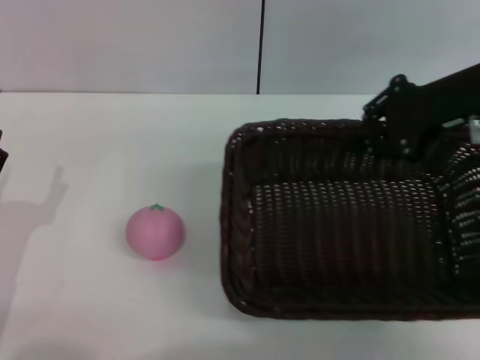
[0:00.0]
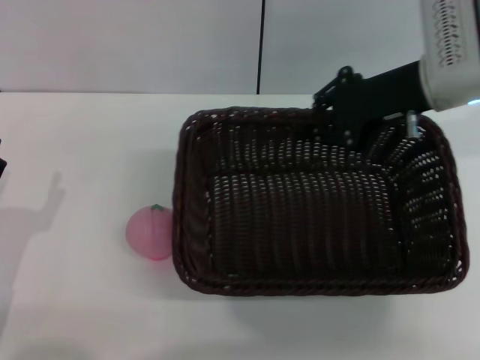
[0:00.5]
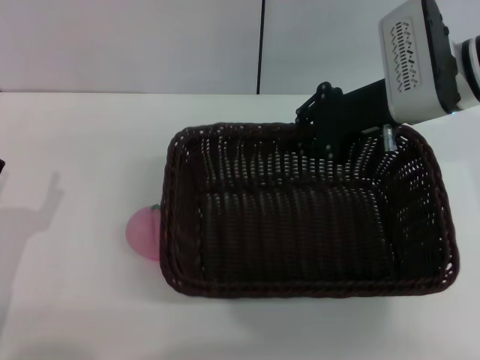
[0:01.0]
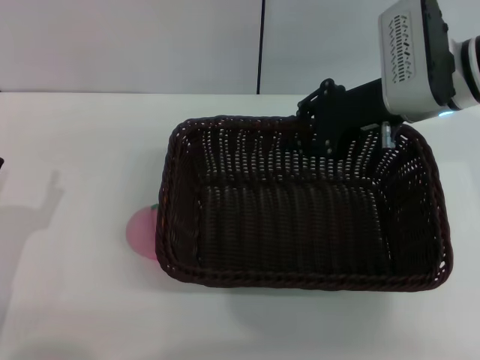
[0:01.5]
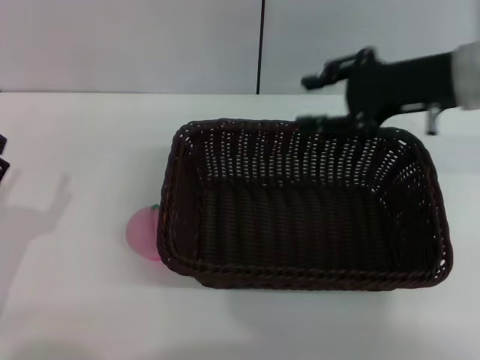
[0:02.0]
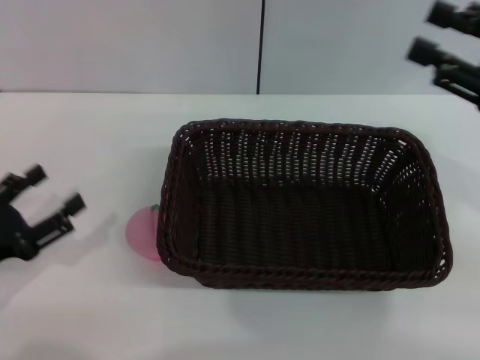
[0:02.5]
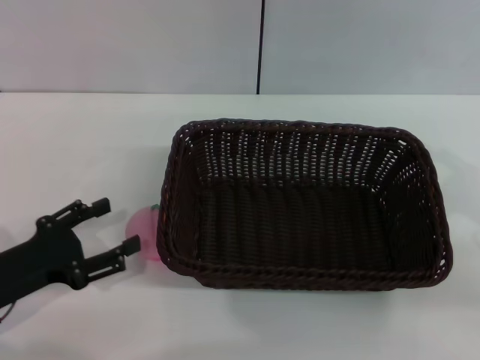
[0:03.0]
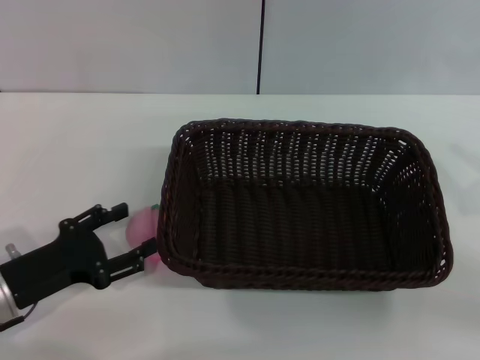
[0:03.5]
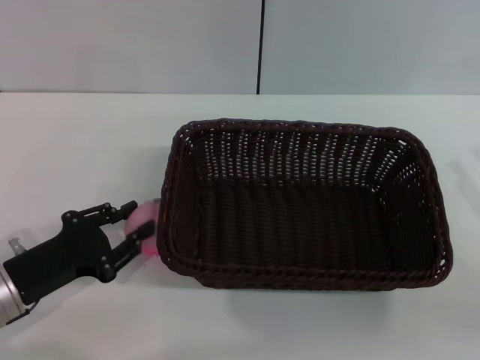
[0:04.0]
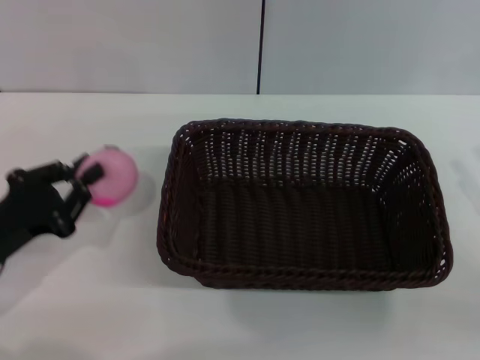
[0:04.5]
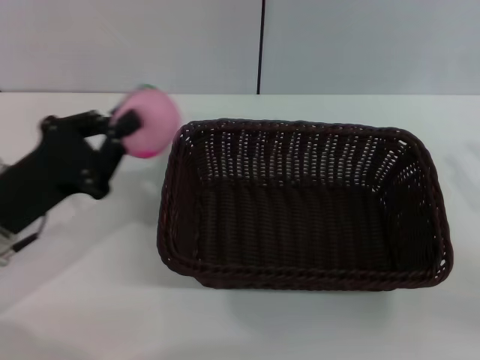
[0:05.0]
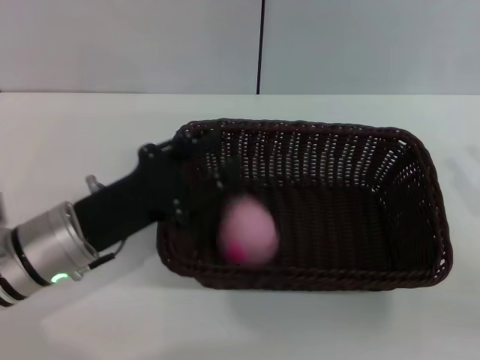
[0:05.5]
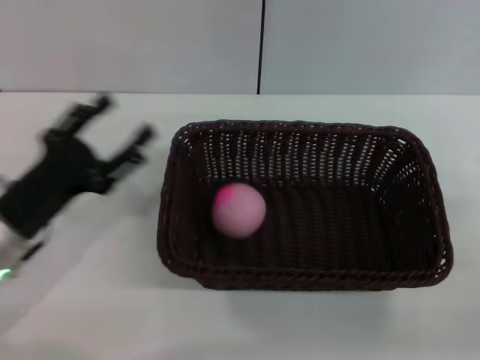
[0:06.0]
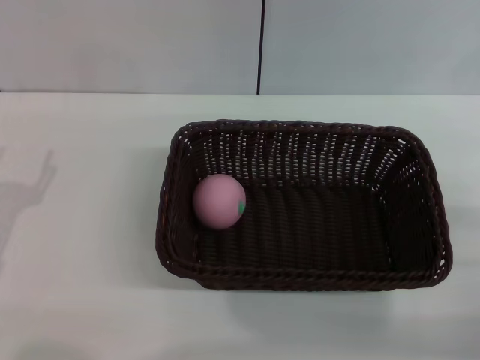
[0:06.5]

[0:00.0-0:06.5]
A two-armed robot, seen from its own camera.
Step, 0:00.0 to 0:02.0: Place the dark basket in the center of view with the right gripper.
Step, 0:02.5 to 0:04.5: Pick up the peach with the left gripper.
Step, 0:05.0 to 0:05.5: Place the peach into the basket with the left gripper.
0:00.0 to 0:02.0: The right gripper opens up.
0:02.0 to 0:04.5: The left gripper closes up. The right gripper moves backward, to the right and downward, some 25 cm.
0:04.5 to 0:06.5: The right gripper moves about 5 cm. The left gripper travels to the right and back again, approximately 10 cm each way, and opens up.
